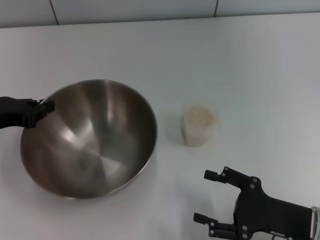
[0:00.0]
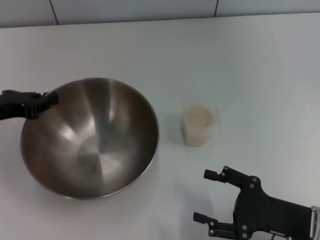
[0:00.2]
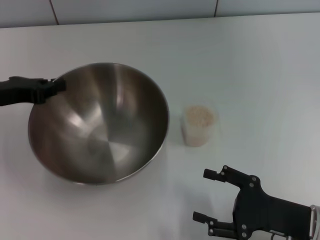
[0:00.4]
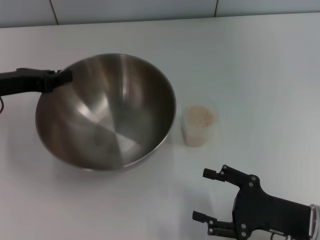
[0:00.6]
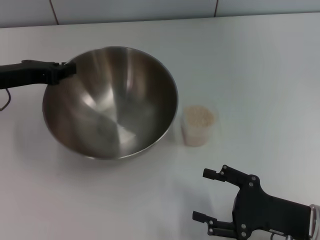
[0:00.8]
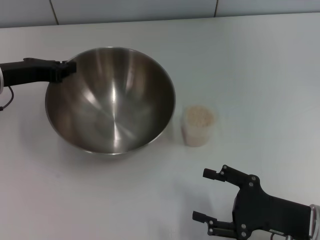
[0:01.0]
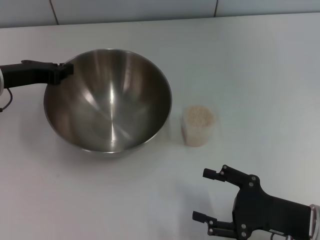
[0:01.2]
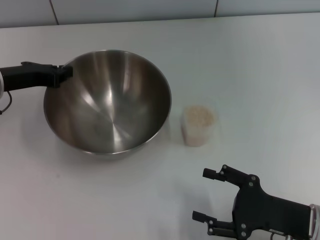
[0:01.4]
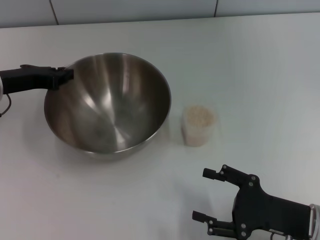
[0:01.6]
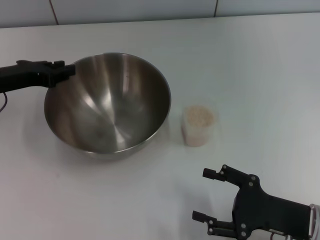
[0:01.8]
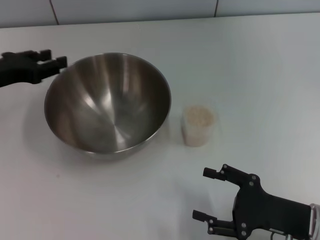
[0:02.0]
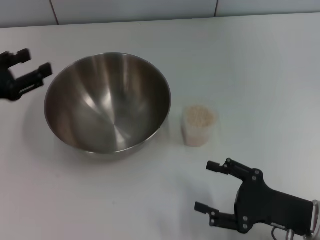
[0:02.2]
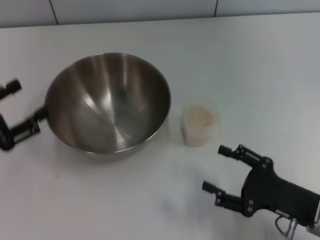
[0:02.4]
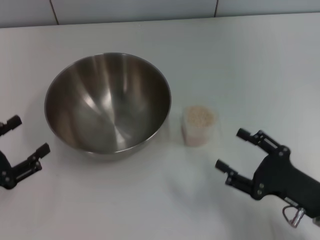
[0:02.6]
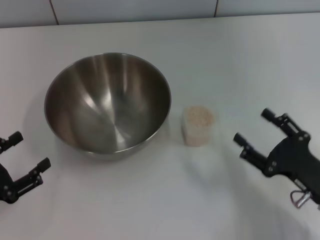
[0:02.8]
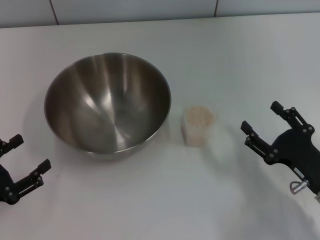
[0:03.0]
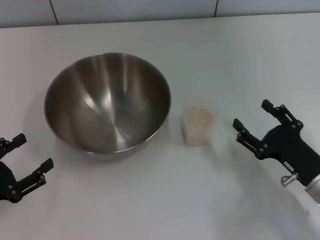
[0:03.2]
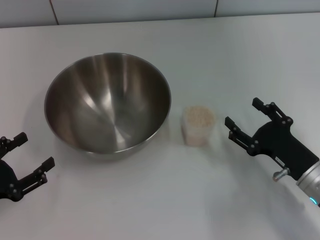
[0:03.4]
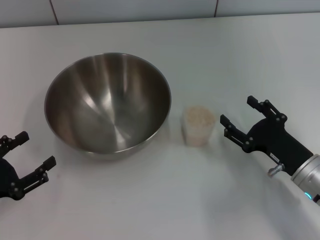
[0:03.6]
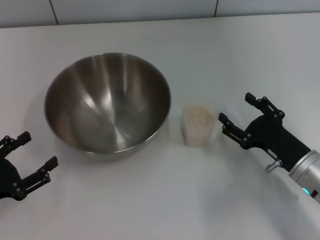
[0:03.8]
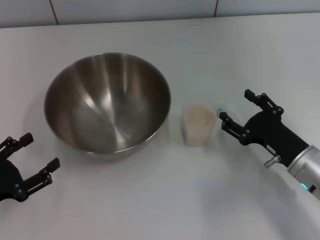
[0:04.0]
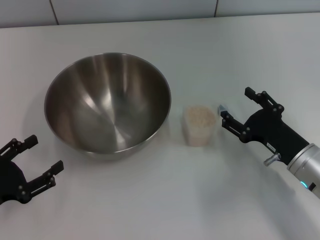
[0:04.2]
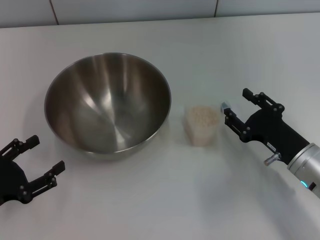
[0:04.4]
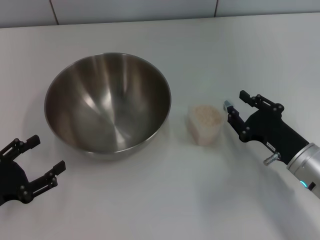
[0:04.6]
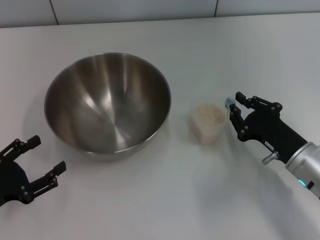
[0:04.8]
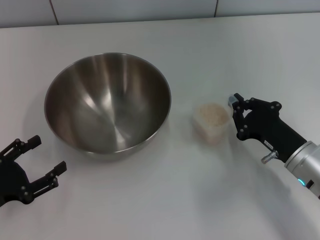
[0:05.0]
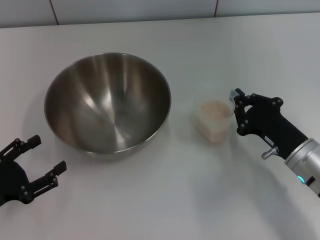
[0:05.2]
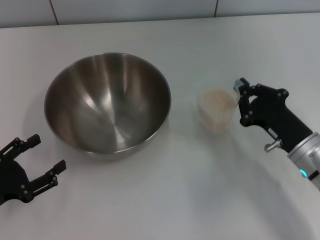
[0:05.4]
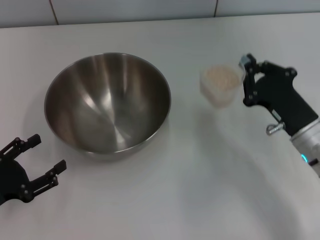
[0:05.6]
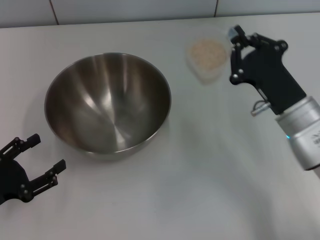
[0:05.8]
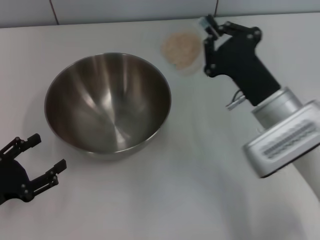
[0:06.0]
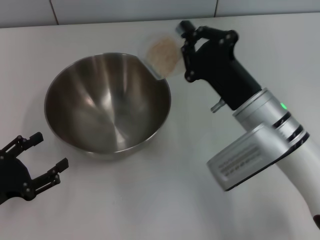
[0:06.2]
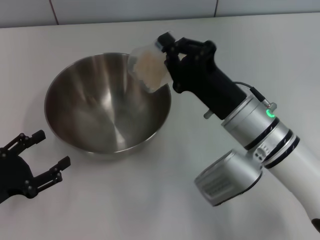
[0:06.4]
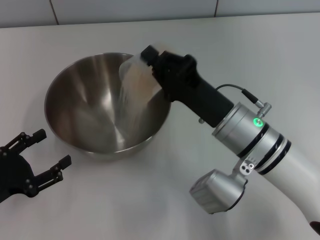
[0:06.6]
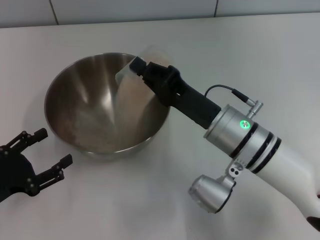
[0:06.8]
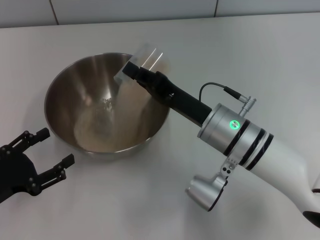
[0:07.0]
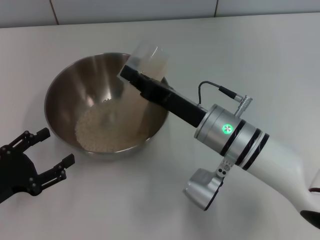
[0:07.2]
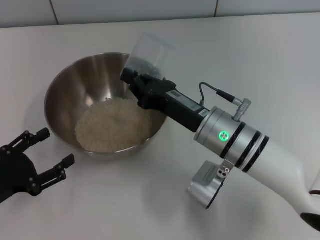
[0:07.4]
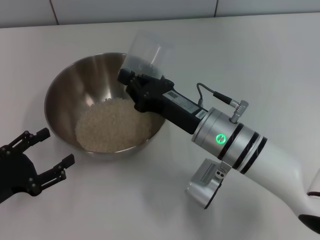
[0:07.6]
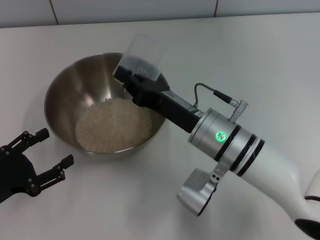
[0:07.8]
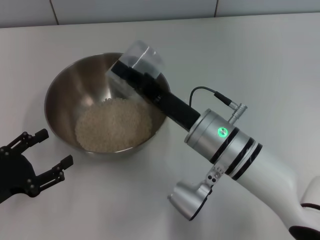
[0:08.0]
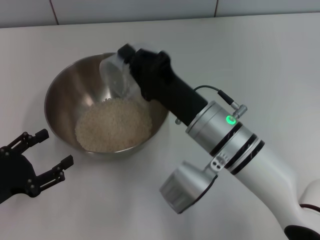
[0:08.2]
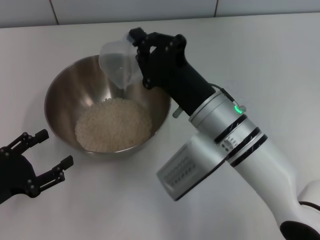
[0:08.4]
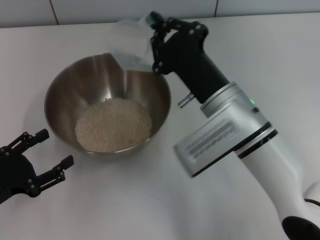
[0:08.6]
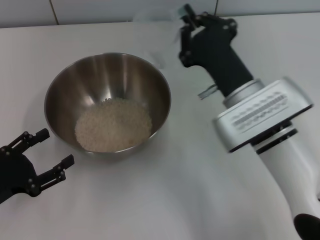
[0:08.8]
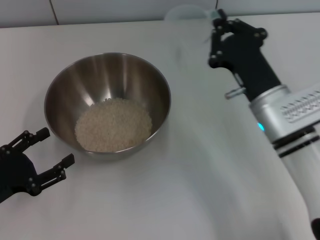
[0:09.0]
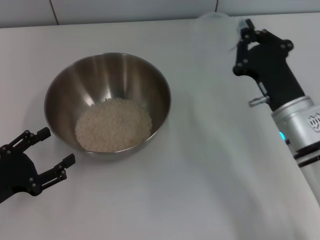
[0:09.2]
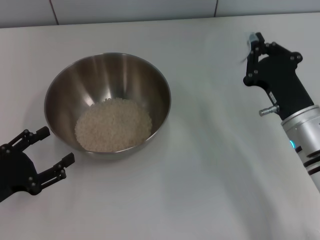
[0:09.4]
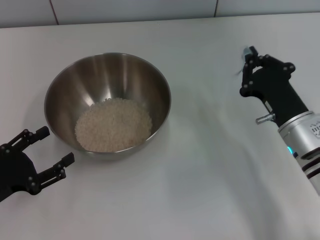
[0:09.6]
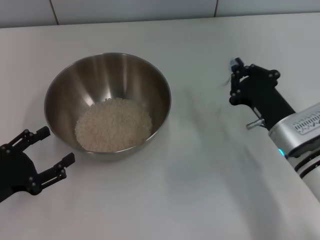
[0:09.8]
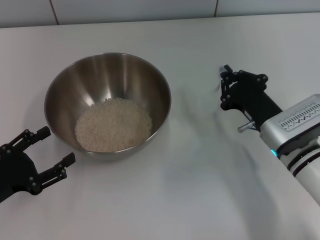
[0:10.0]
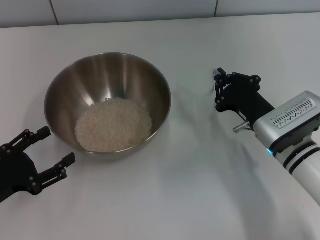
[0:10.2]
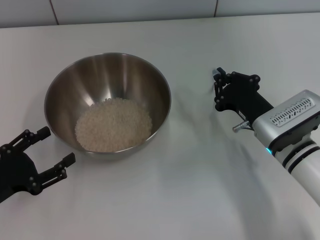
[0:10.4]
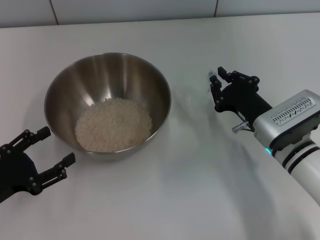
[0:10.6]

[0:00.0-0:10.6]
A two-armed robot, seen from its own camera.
Task of the whole recording: Place the bowl in the middle of the table with one hand and pour the rice from the grain cup into it with the other hand.
Step, 0:00.8 to 0:02.0: Place the bowl in the center of view with the left gripper.
Step, 0:02.4 to 0:05.4: Pick up the cup with rice in it with the right gripper.
Step, 0:05.6 to 0:09.0: Pour the rice from the cup into the bowl with the right gripper.
0:00.0 to 0:01.6: The left gripper shifts approximately 5 cm forward.
0:01.6 to 0:03.0: The left gripper shifts some 20 cm backward, and opens its fingers.
0:03.0 to 0:04.6: The right gripper goes about 5 cm forward.
0:04.6 to 0:06.0: The right gripper goes about 10 cm upward and to the left, and closes its fingers.
0:06.0 to 0:07.6: The right gripper heads to the left, covering some 5 cm.
0:07.6 to 0:09.0: The right gripper moves to the right, some 5 cm.
0:09.0 to 0:10.6: The right gripper goes approximately 5 cm downward.

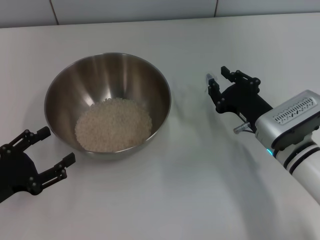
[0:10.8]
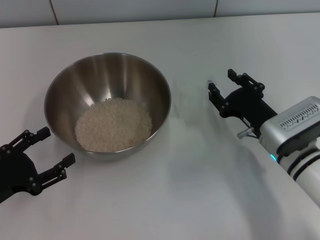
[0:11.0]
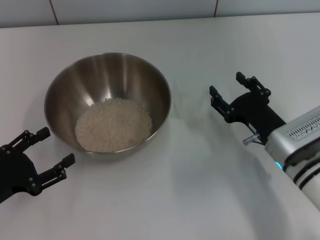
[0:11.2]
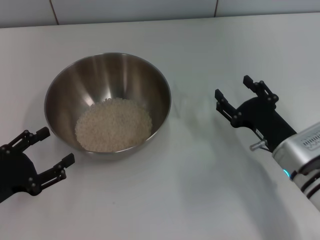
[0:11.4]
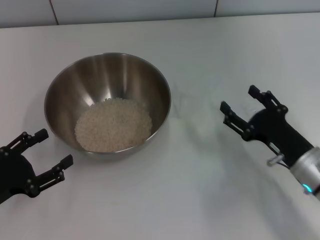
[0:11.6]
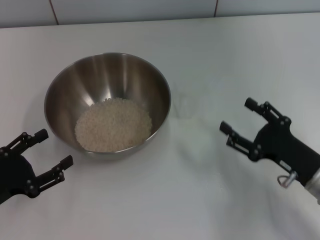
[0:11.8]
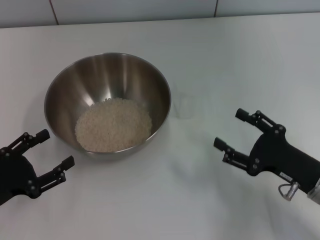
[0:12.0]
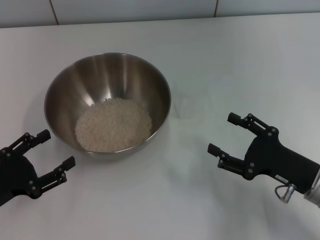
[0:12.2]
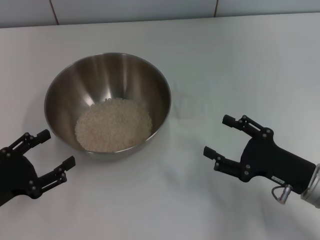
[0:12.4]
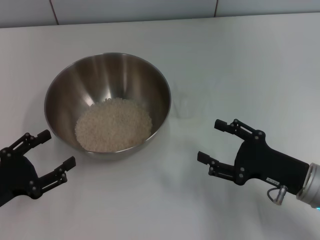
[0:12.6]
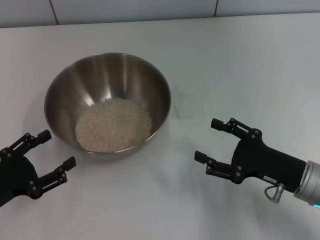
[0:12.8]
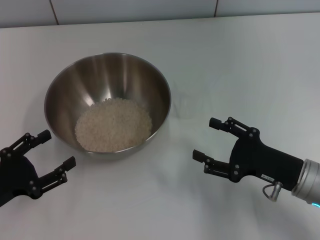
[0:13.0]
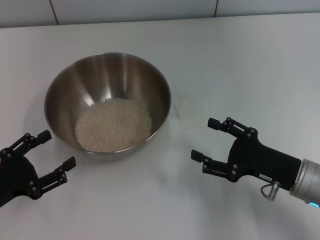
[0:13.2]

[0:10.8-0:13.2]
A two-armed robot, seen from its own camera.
Task of the whole recording: Place the bowl in the middle of the table with one hand and pour the rice from the grain cup into it with the other hand.
0:10.8 to 0:12.0: The right gripper goes about 10 cm backward and to the right, and opens its fingers.
0:12.0 to 0:13.2: There are only small adjustments of the grippers.
